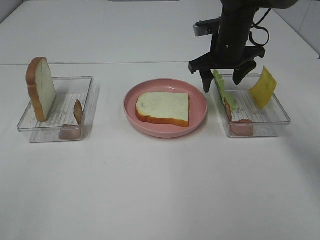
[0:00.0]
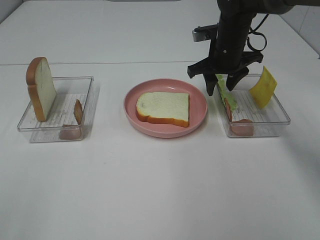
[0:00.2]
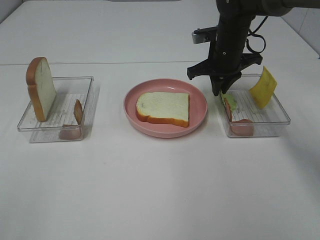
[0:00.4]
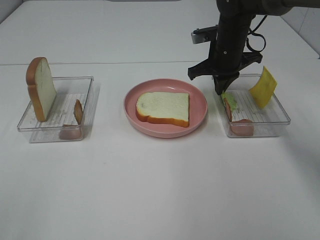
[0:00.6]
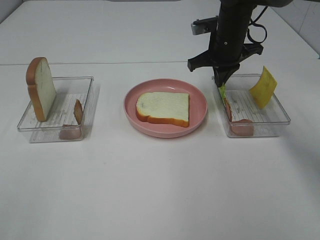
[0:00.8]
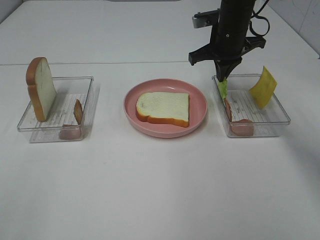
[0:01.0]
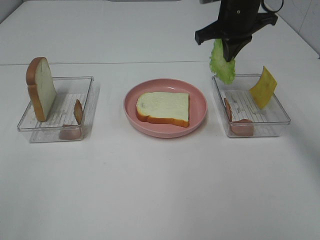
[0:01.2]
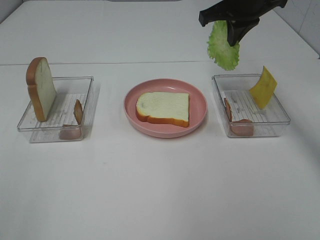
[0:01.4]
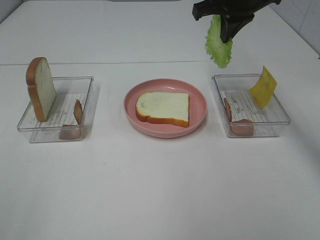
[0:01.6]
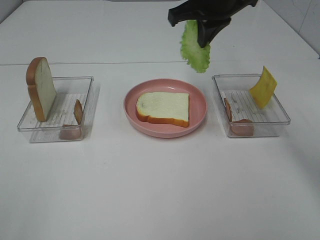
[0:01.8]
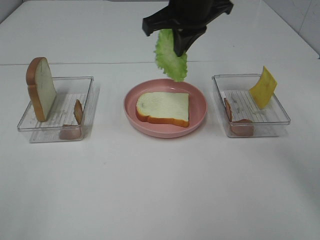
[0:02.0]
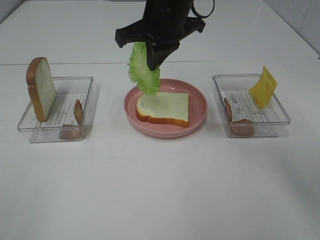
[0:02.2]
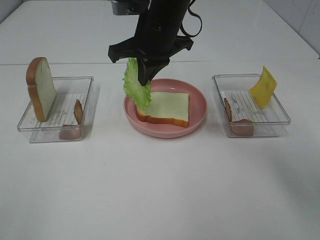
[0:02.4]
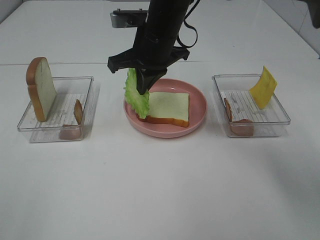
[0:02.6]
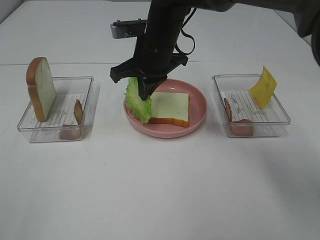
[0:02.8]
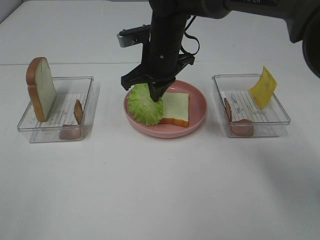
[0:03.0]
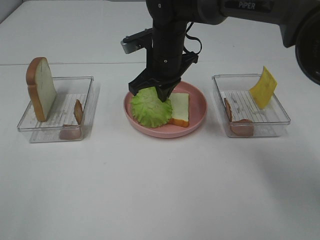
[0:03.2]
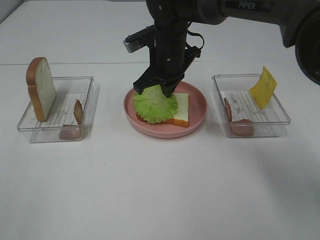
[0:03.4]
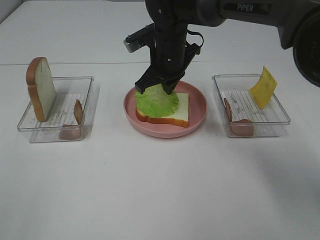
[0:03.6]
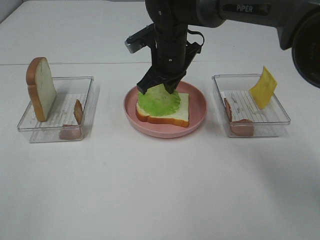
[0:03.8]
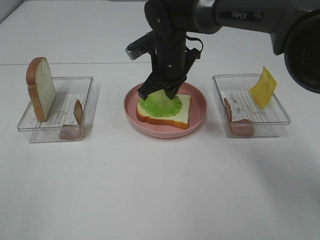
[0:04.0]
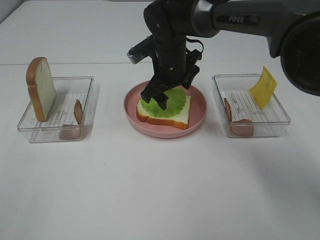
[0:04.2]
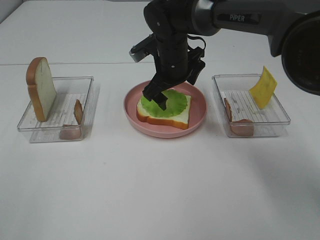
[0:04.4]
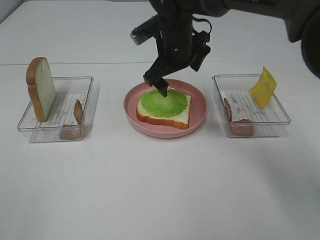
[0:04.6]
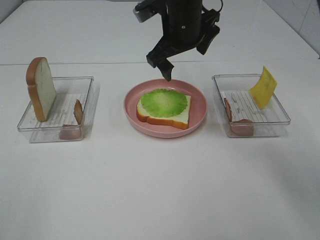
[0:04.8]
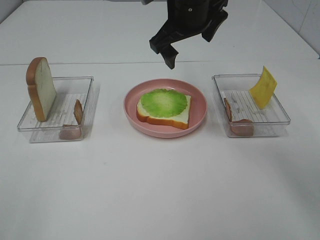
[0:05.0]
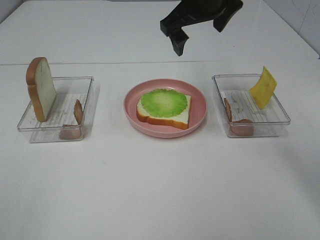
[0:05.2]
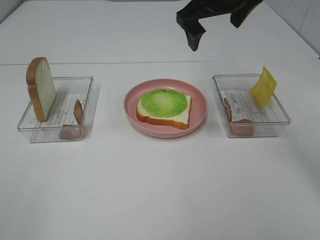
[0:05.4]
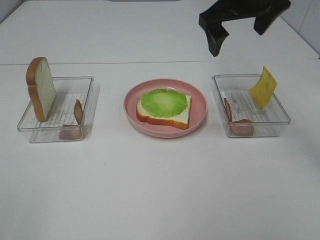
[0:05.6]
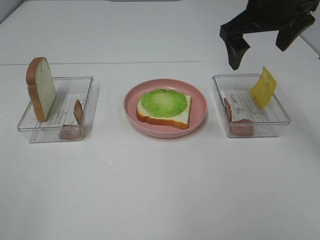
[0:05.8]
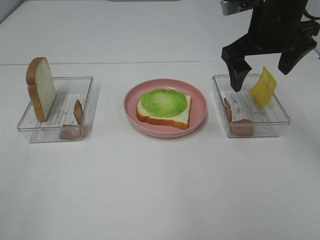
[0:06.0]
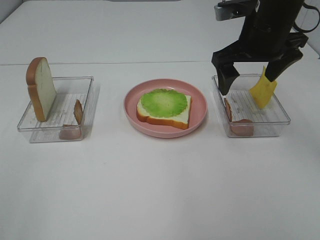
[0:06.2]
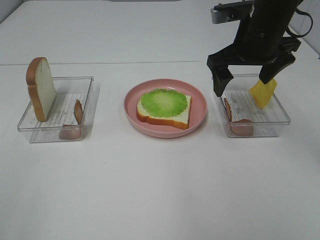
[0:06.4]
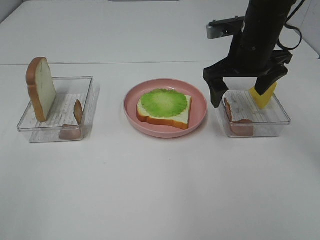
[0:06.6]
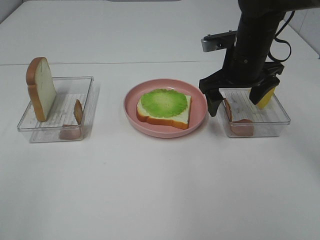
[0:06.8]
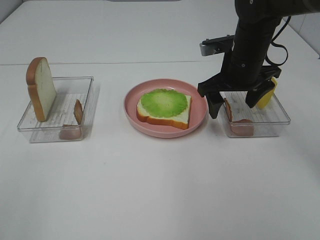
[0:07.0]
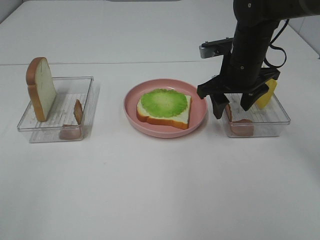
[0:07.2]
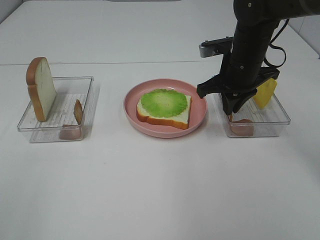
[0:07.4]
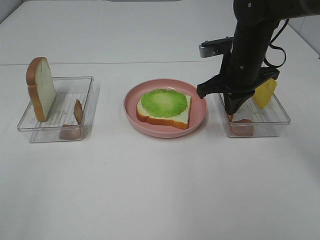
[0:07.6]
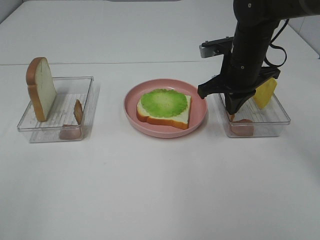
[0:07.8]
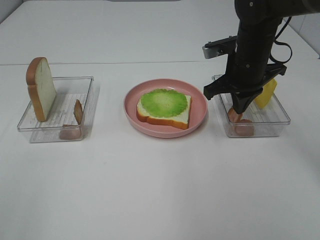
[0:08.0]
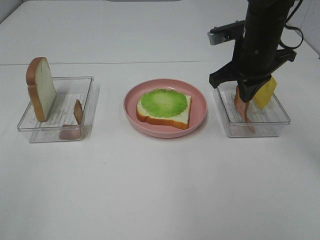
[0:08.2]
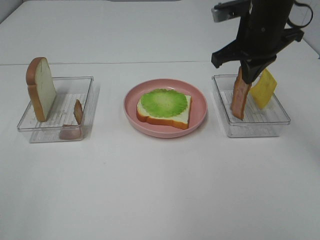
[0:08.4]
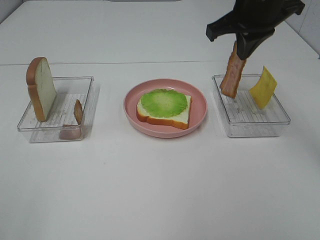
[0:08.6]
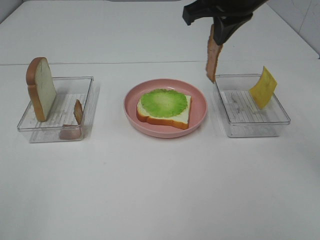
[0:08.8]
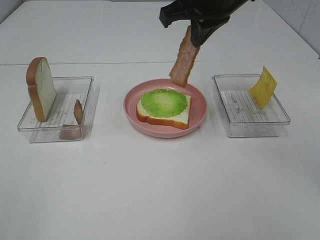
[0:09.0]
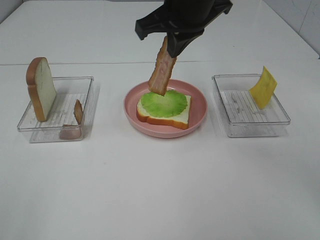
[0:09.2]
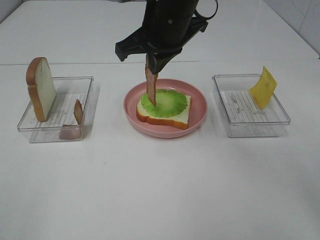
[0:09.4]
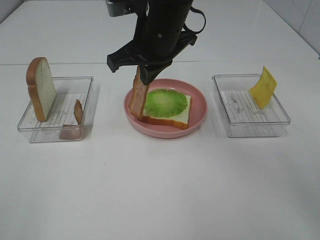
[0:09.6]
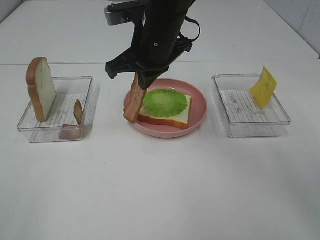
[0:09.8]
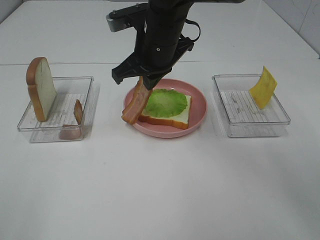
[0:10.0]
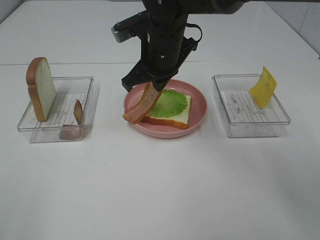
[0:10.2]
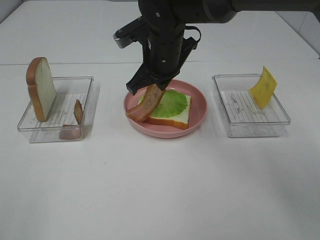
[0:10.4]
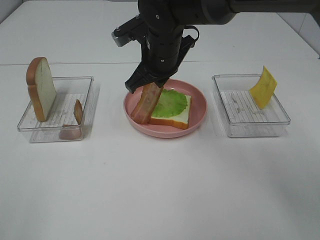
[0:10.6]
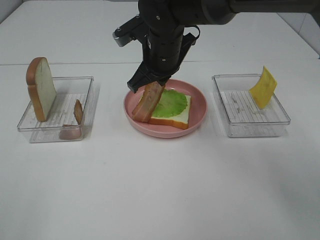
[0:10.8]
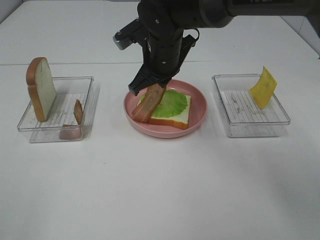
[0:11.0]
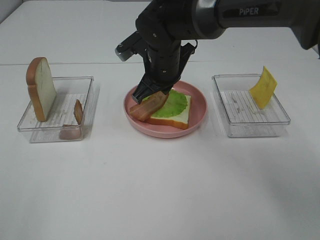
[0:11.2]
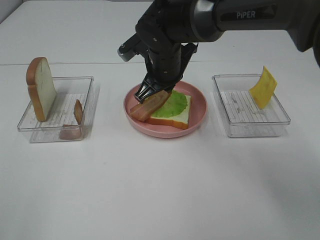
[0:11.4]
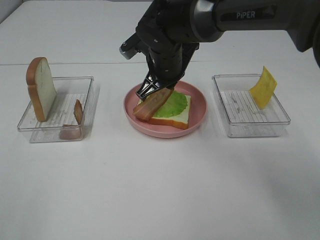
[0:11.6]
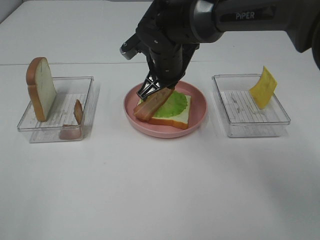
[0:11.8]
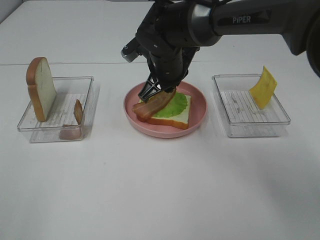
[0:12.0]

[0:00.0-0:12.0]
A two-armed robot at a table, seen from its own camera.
Task of the whole recording: Make sandwiches.
Step, 0:00.8 to 0:04.2: Right hand:place the lettuce slice on the bread slice.
Step, 0:04.4 to 0:07.8: Right hand:grab the bacon.
0:00.0 to 0:01.6: The right gripper moves upward, approximately 10 cm, and closes its fingers.
0:01.6 to 0:03.0: The right gripper moves to the left and downward, approximately 15 cm.
0:03.0 to 0:04.4: The right gripper opens.
0:04.4 to 0:06.0: The right gripper moves to the right, upward and backward, approximately 20 cm.
0:06.0 to 0:07.6: The right gripper is displaced downward by roughly 10 cm, and closes up.
0:07.6 to 0:09.0: The right gripper is displaced upward and to the left by approximately 15 cm.
0:09.0 to 0:10.4: The right gripper goes roughly 15 cm downward and to the left.
0:10.4 to 0:12.0: The grippers stay close to where they were, moving slightly.

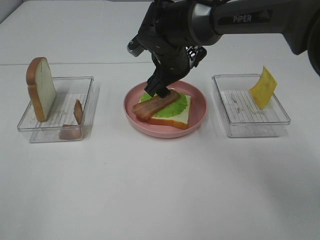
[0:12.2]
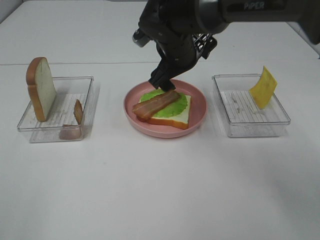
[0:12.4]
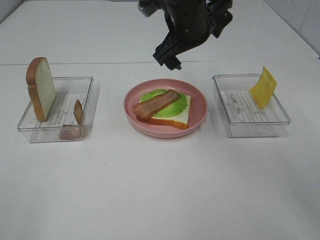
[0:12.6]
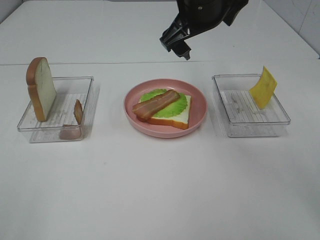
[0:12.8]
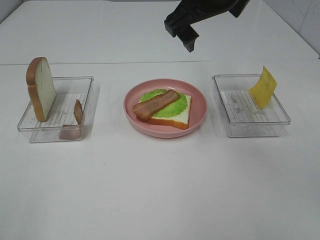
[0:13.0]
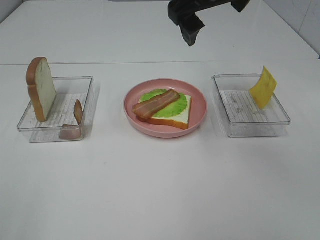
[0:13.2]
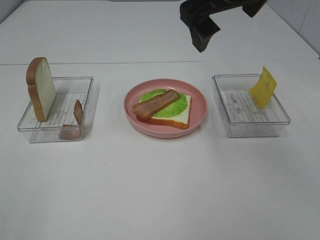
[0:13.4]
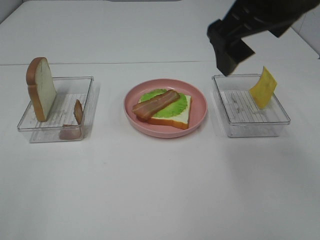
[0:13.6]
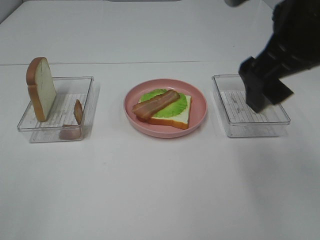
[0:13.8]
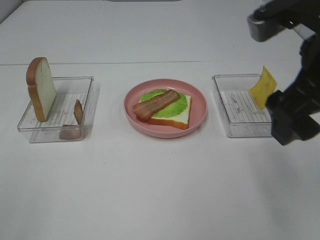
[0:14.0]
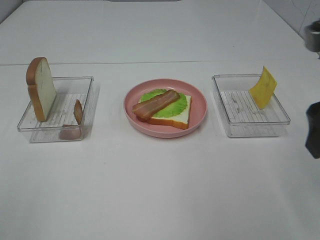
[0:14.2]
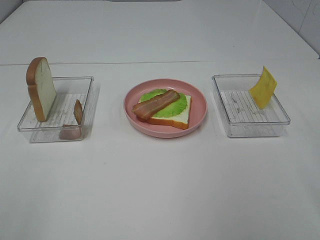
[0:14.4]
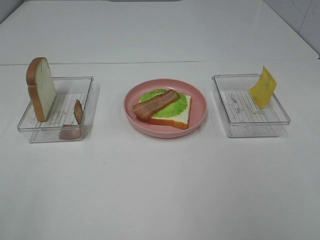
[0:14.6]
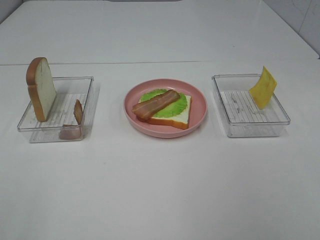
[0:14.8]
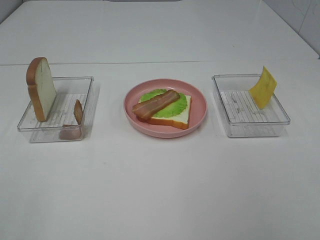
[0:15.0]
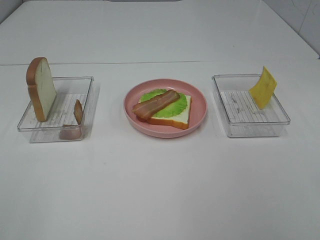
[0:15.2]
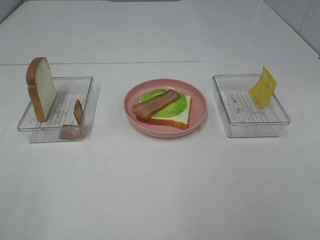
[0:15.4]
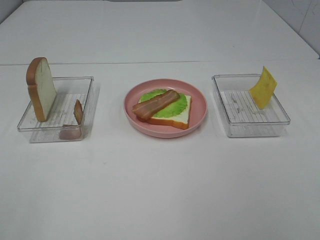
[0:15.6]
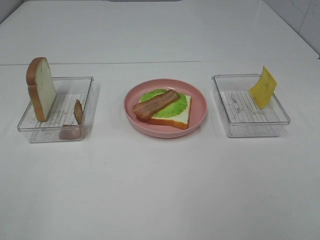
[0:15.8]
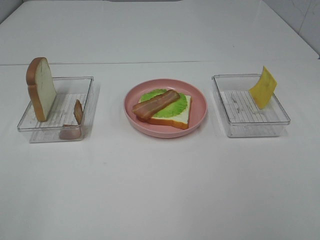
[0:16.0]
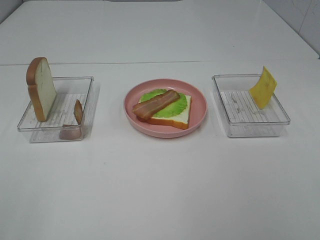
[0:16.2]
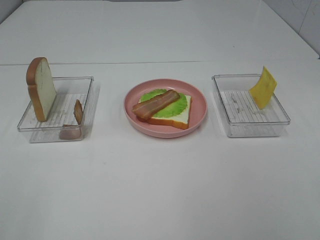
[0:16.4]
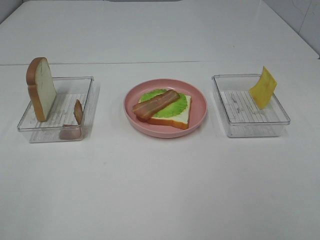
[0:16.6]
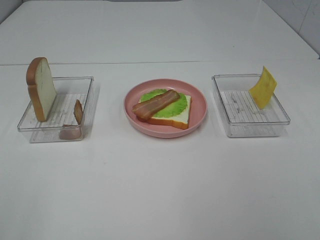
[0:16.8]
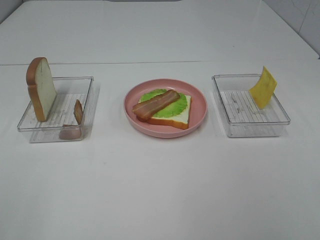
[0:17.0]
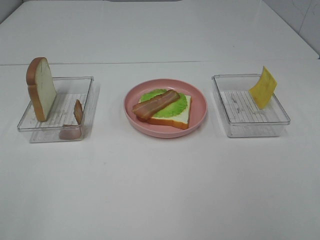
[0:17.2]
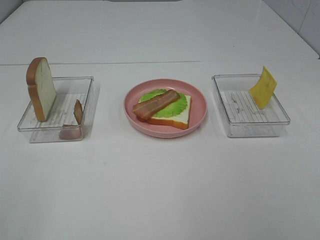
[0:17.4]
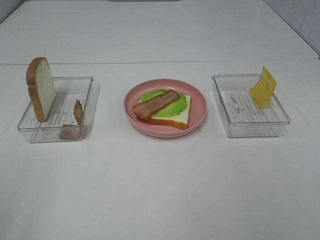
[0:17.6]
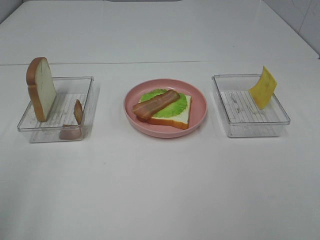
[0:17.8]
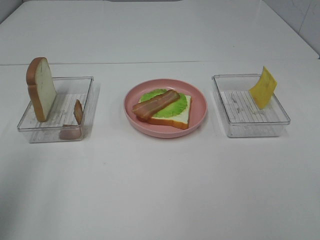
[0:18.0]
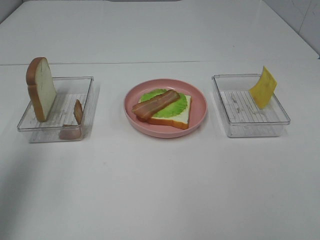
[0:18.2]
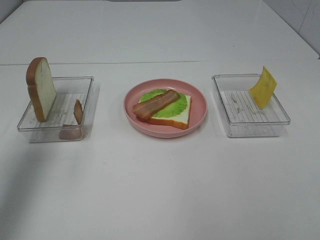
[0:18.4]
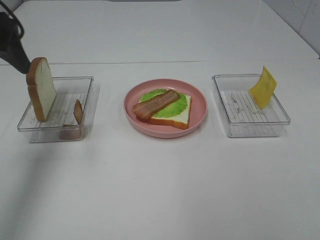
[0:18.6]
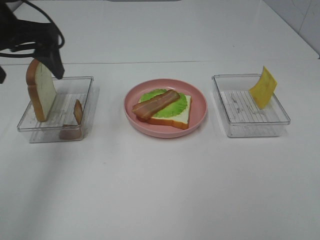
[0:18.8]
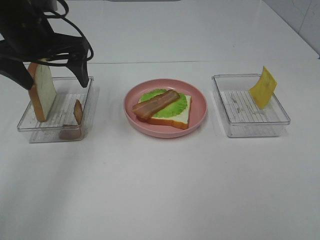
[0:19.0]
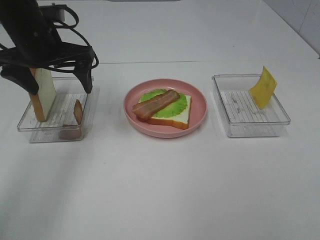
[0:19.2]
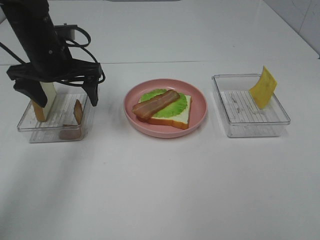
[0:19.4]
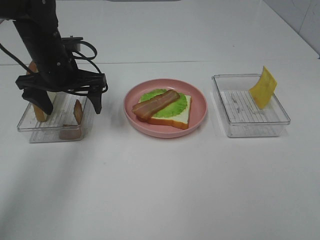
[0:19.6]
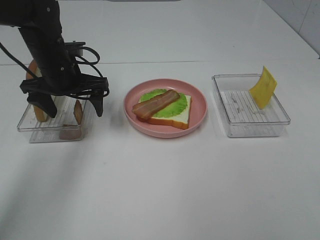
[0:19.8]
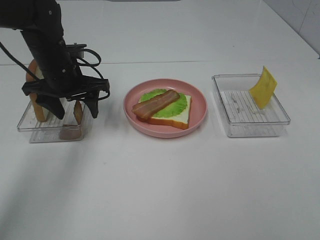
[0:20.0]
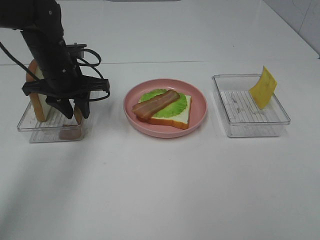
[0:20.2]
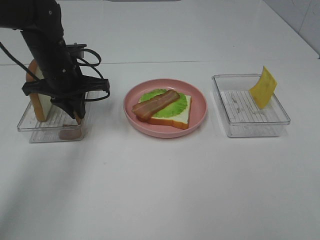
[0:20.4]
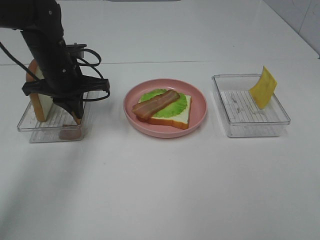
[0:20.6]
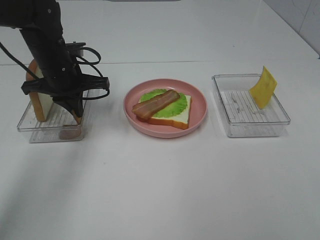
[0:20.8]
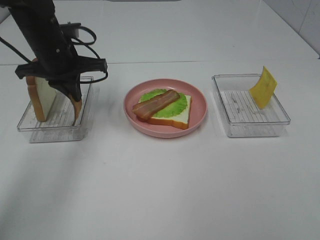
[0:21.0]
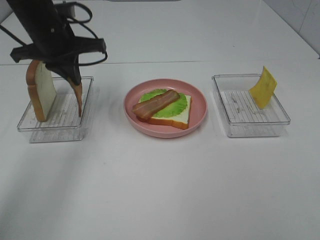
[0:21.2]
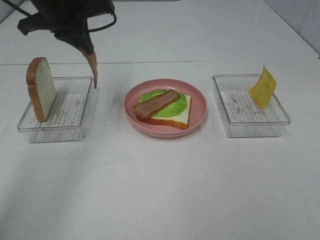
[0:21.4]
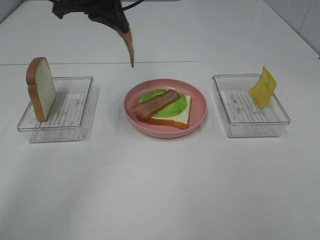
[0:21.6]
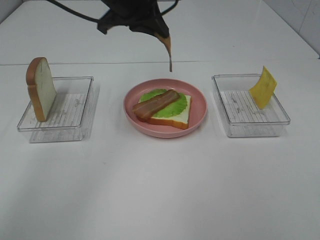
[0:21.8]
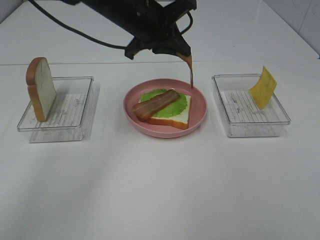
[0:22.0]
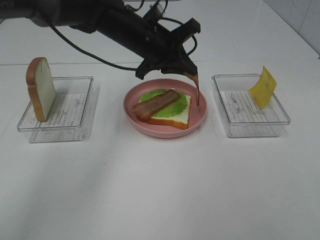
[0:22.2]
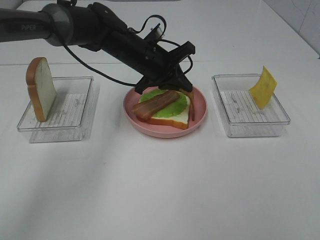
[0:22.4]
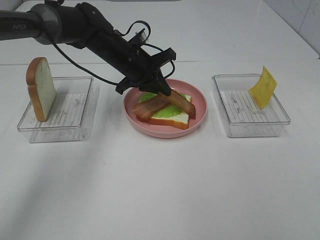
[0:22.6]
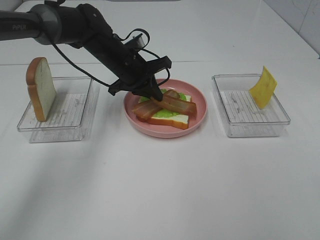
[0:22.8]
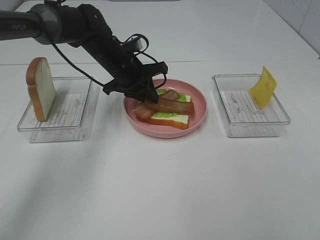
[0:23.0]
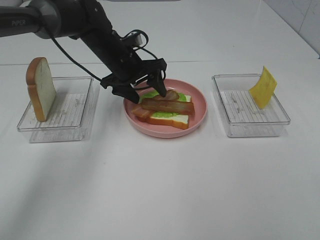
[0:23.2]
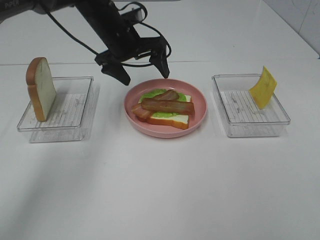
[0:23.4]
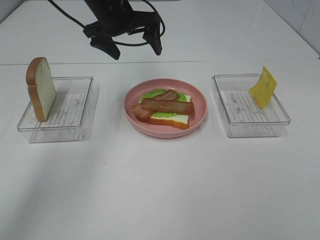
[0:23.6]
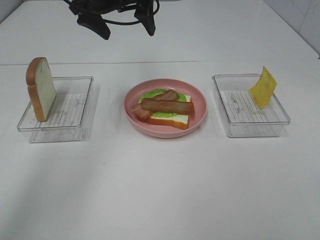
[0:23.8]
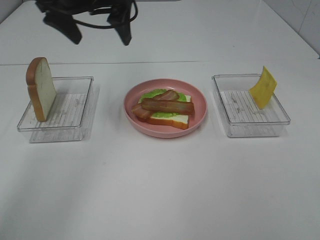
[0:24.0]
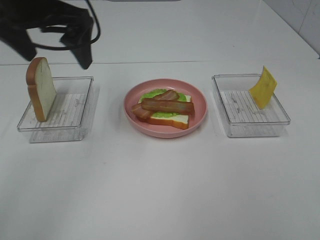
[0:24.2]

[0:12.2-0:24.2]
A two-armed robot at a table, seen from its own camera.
Task of the whole recording: Make sandwiches.
Step, 0:12.2 to 0:20.8: Left hand:grab the bacon.
Step, 0:21.0 to 0:23.2: Left hand:place bacon on bacon.
0:12.2 to 0:13.8: The right gripper travels backward, upward and to the right by about 30 cm.
0:13.8 to 0:15.2: The right gripper is displaced backward and to the right by roughly 25 cm.
0:16.6 to 0:18.2: The left gripper heads forward, covering approximately 20 cm.
0:18.2 to 0:19.8: The left gripper goes about 30 cm forward, downward and to the right.
0:19.8 to 0:21.2: The left gripper heads upward, covering some 10 cm, and closes its fingers.
0:21.2 to 0:22.6: The left gripper shifts some 15 cm to the right, downward and forward.
0:22.6 to 0:24.2: The left gripper moves upward, backward and to the left, roughly 25 cm, and opens.
